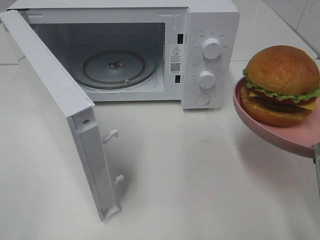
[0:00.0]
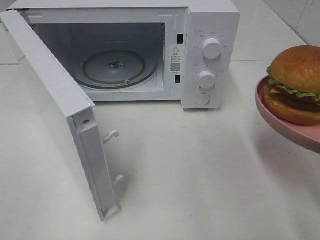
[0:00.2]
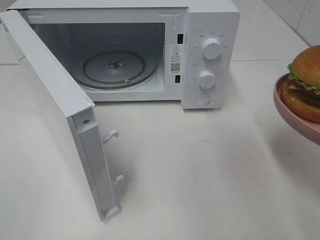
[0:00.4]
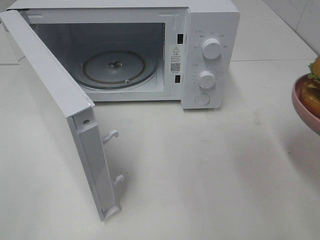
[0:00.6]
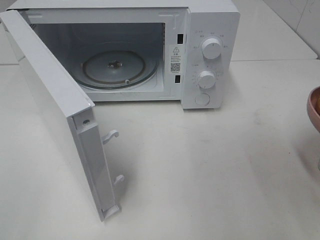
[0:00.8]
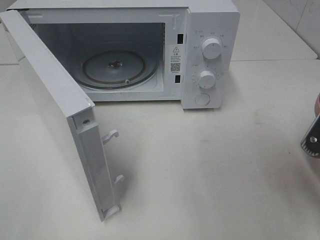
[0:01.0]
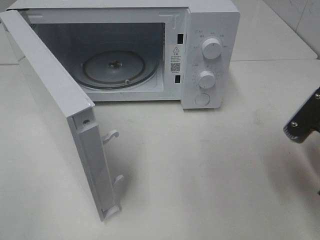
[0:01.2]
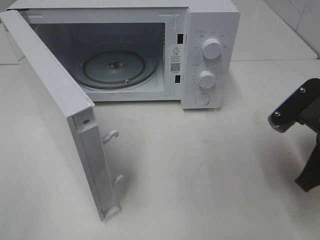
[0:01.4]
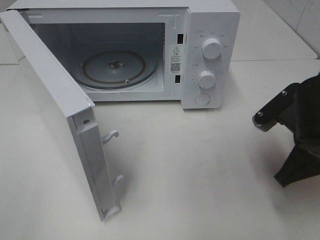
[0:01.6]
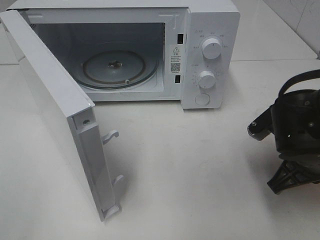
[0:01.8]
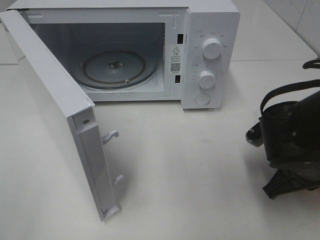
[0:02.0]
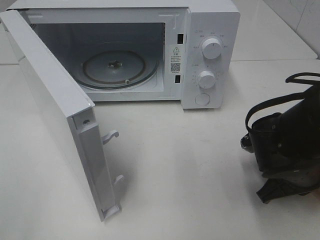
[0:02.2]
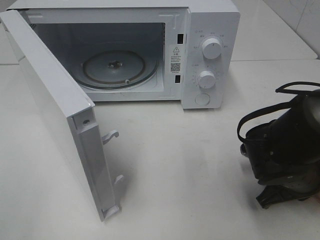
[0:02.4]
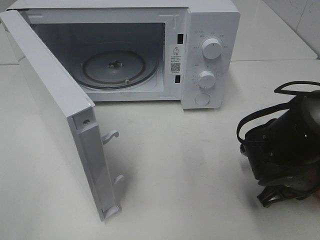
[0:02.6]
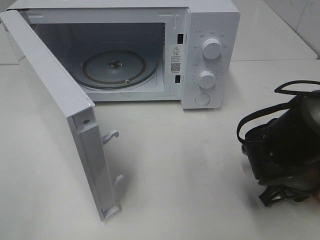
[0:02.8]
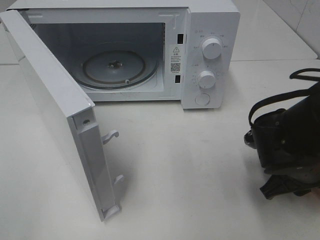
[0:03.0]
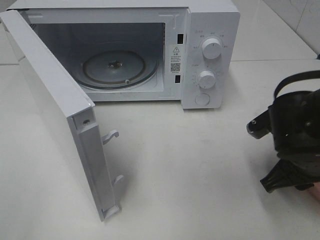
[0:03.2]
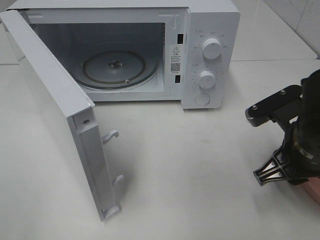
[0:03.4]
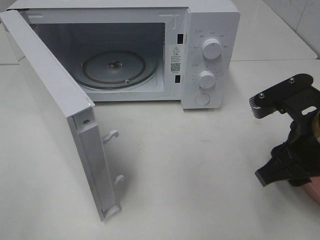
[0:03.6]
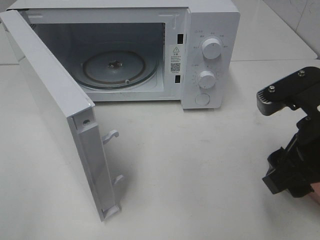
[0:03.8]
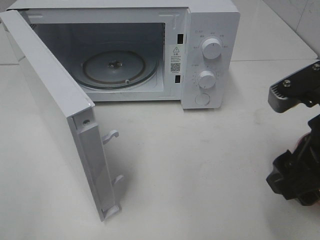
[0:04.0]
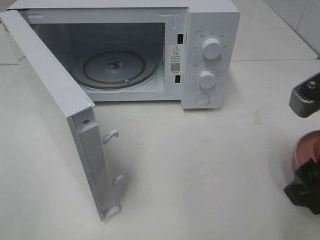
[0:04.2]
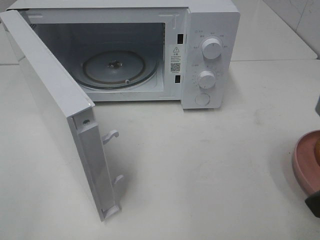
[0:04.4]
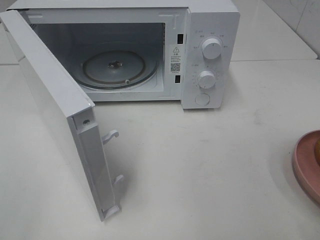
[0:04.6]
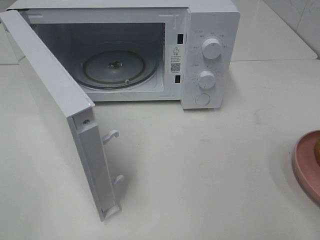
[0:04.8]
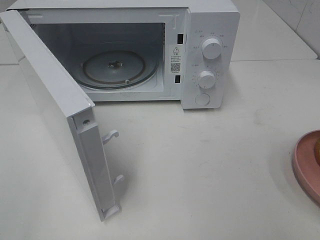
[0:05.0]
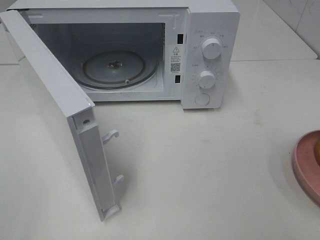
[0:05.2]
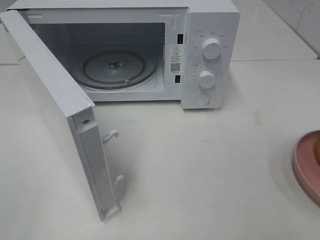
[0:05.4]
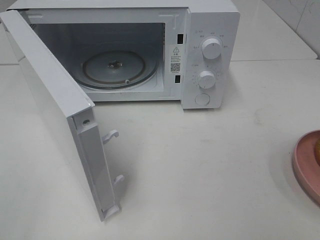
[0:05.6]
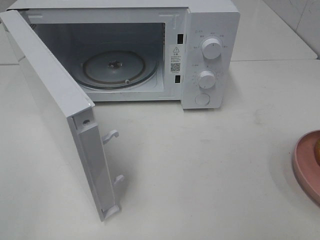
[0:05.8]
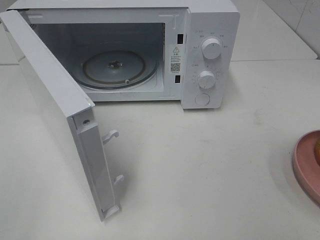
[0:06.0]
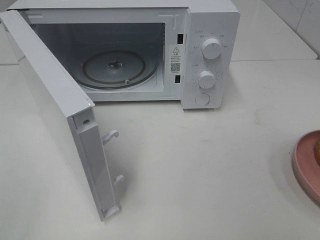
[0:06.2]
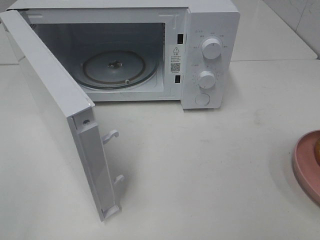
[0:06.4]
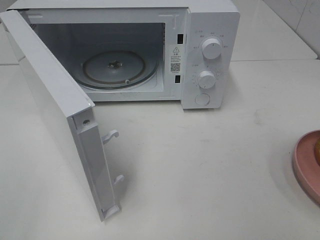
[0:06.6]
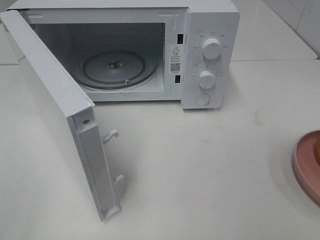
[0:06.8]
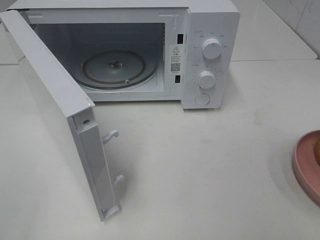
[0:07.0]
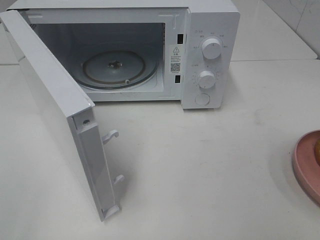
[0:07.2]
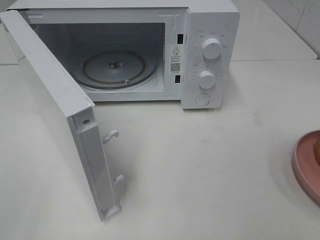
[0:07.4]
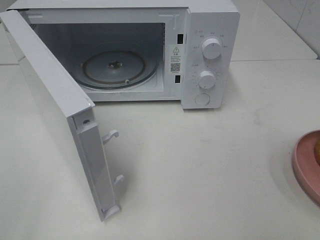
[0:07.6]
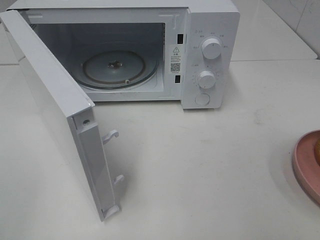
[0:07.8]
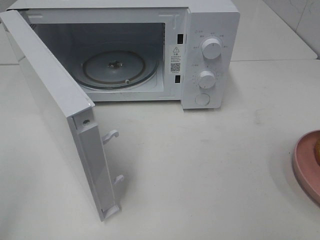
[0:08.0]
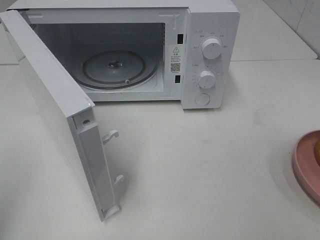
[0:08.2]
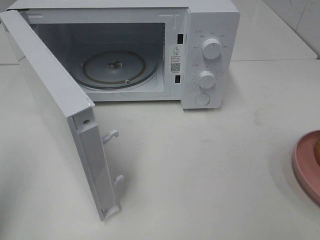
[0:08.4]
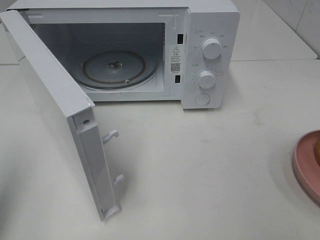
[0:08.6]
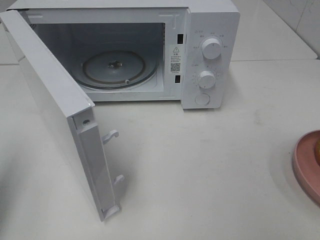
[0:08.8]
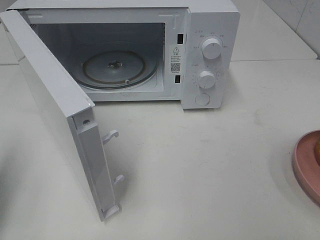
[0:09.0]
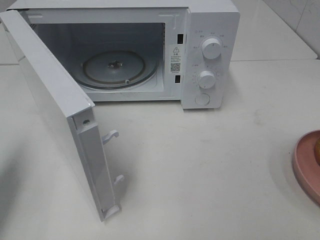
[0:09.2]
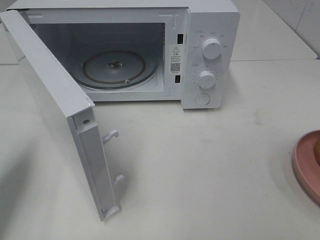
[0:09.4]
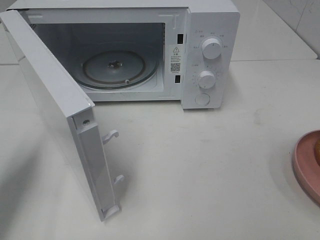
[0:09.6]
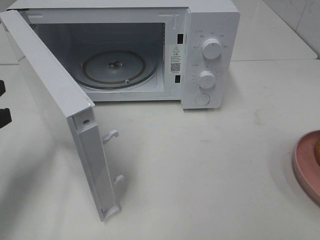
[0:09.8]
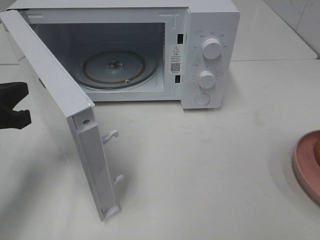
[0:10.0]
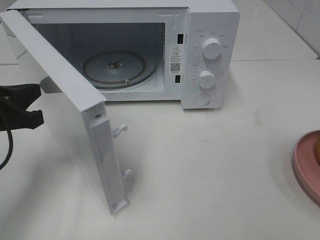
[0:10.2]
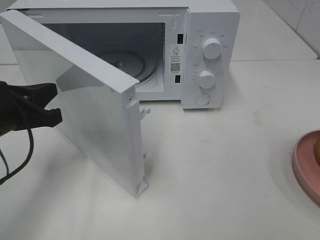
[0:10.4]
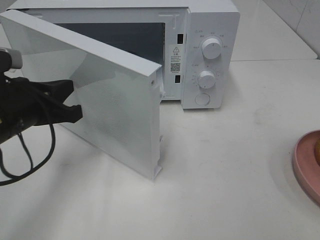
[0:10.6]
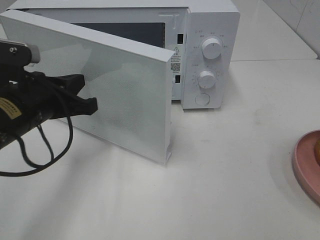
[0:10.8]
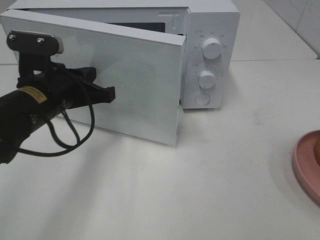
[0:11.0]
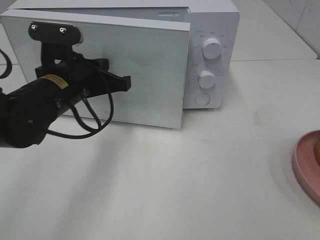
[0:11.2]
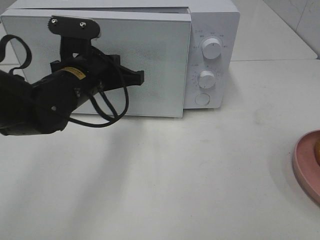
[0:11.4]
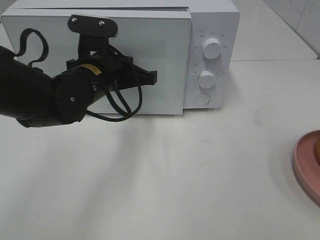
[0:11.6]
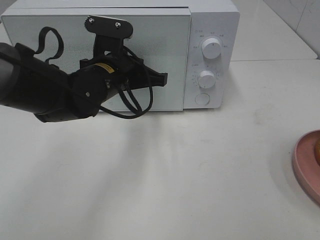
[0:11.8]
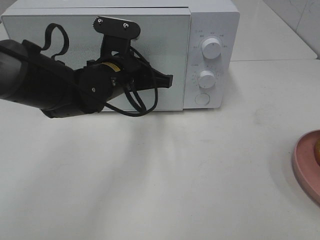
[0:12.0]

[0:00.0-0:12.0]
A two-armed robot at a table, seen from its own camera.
Task of the whole recording: Heat the burger.
Step, 0:00.0 to 0:03.4: Right hand: place the plate on the table.
0:00.0 to 0:01.6: The right gripper moves forward and downward, about 10 cm.
0:01.6 to 0:03.0: The right gripper moves downward, about 5 cm.
0:03.0 to 0:04.4: The right gripper goes roughly 20 cm upward and backward, and opens its fingers.
0:04.4 to 0:06.0: The right gripper heads backward and to the right, covering approximately 15 cm.
0:06.0 to 0:07.6: The two grippers keep their place.
0:07.6 to 0:09.0: The left gripper heads forward, covering roughly 15 cm, and closes.
0:09.0 to 0:10.4: The left gripper travels to the right, forward and downward by approximately 15 cm.
0:10.4 to 0:12.0: The left gripper goes some 20 cm to the right and forward.

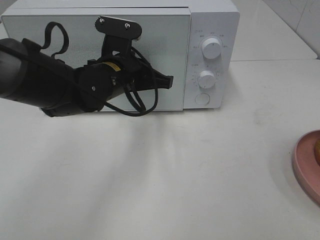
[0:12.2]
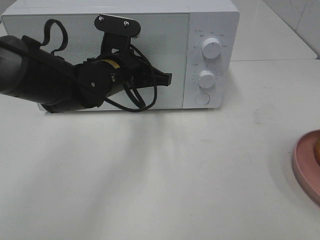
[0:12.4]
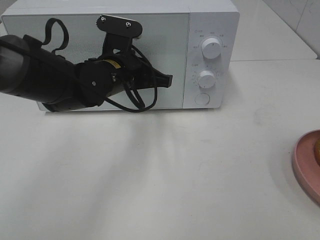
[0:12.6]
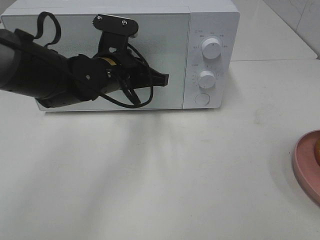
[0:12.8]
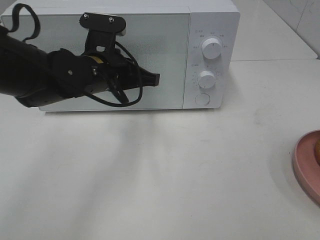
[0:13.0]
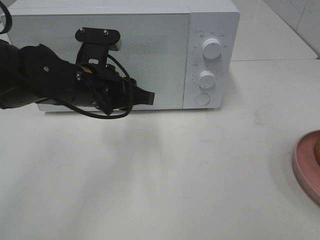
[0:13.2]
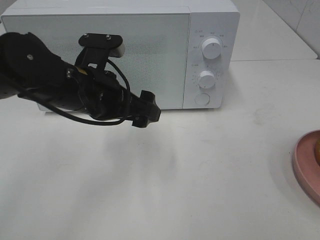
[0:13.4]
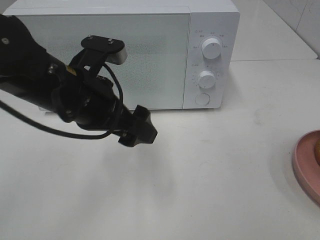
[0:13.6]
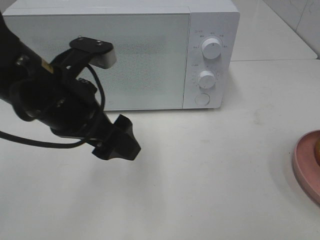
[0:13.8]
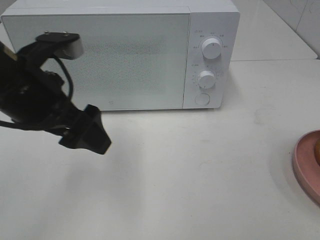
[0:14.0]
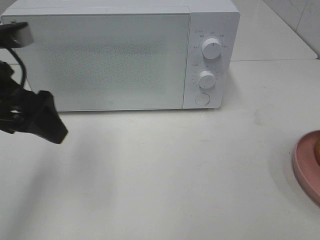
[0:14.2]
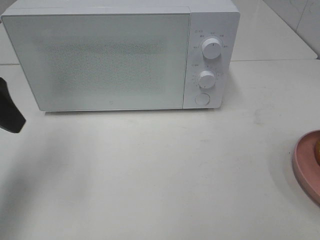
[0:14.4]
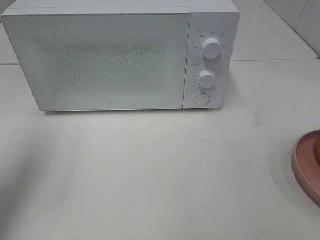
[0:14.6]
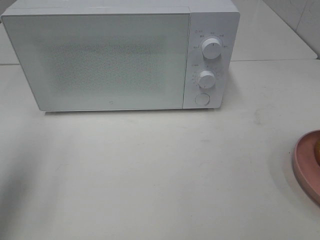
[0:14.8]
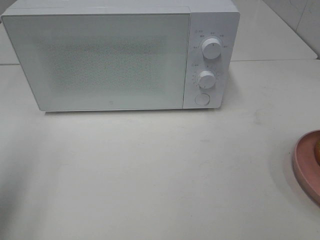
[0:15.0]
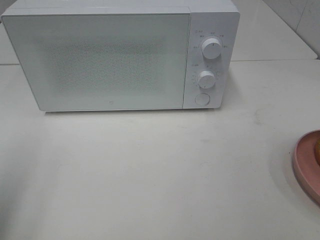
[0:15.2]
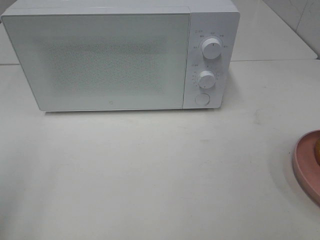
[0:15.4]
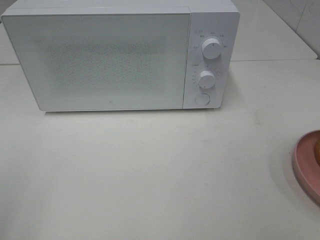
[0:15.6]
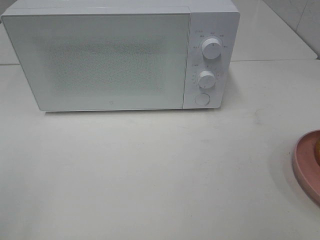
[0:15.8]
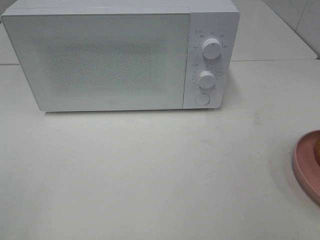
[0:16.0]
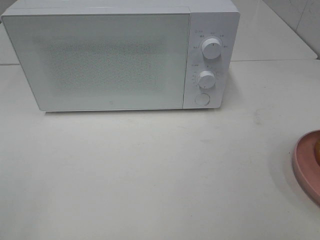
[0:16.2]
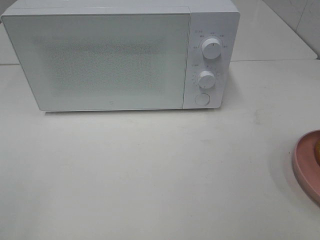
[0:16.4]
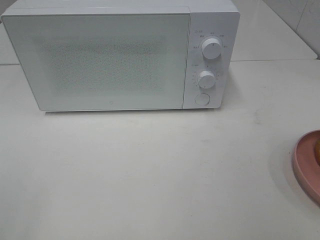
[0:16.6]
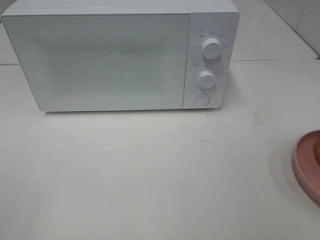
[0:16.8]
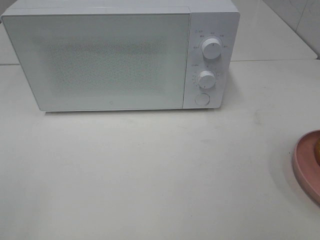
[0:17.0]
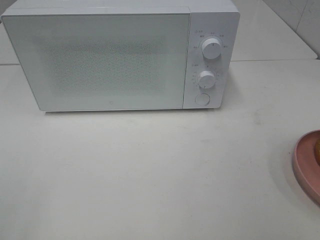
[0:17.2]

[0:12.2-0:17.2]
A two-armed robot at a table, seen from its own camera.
Task of the whole recording: Heat the burger.
0:12.2 to 0:13.8: The left gripper moves backward, upward and to the left, approximately 15 cm, and opens its fingers.
0:13.8 to 0:15.6: The left gripper heads to the left and backward, covering approximately 25 cm.
